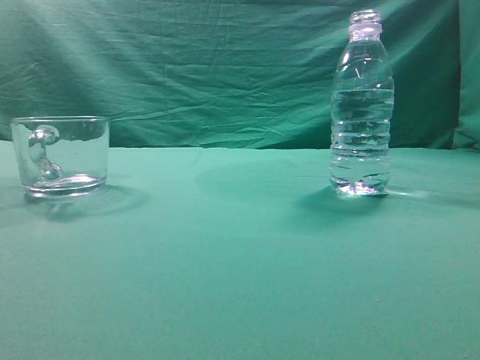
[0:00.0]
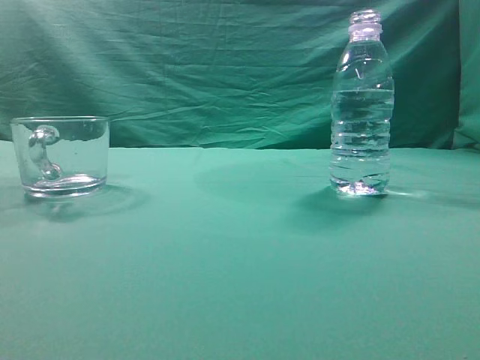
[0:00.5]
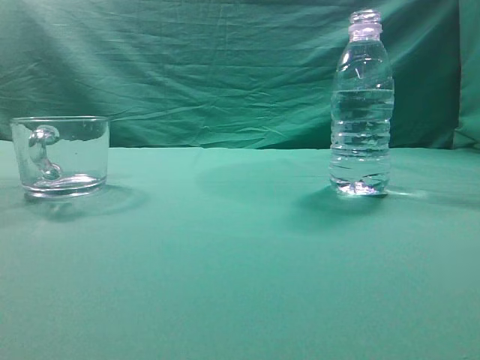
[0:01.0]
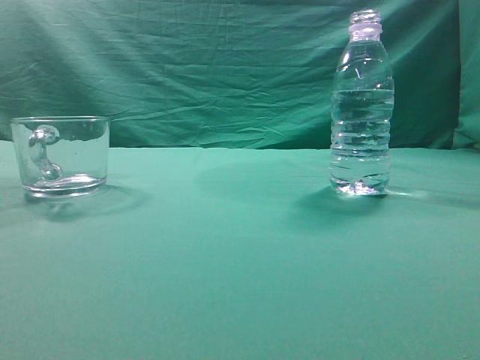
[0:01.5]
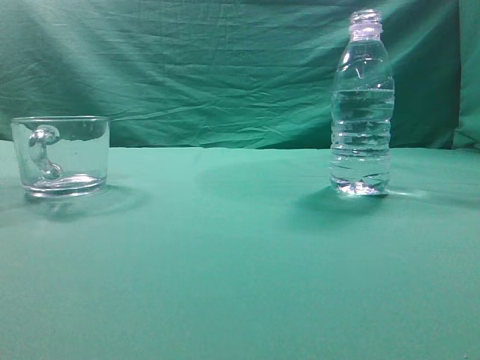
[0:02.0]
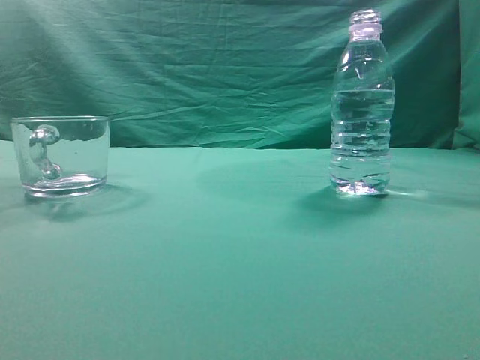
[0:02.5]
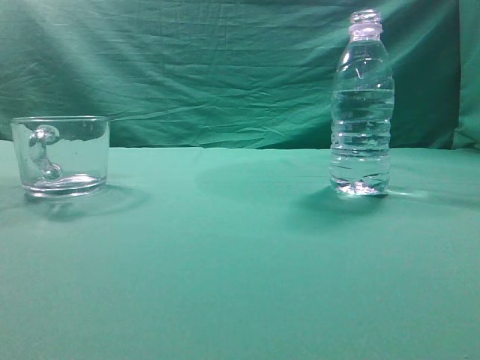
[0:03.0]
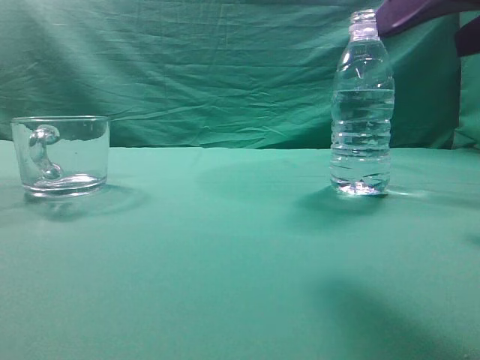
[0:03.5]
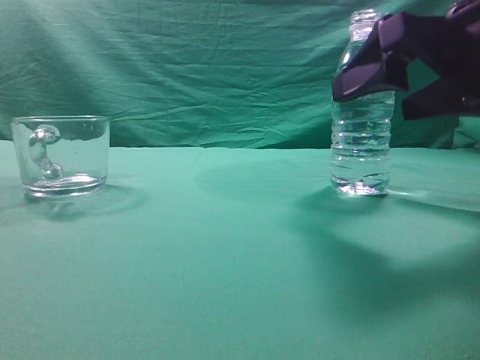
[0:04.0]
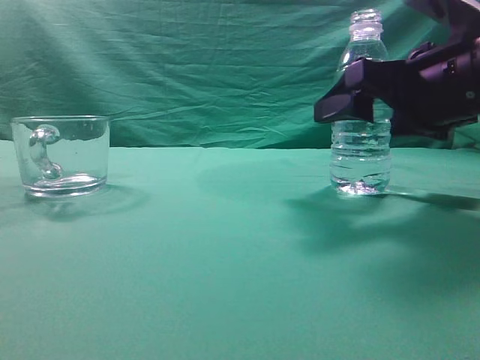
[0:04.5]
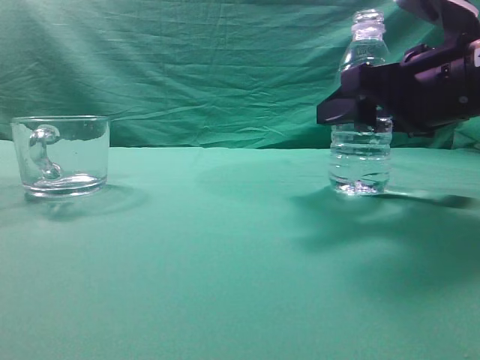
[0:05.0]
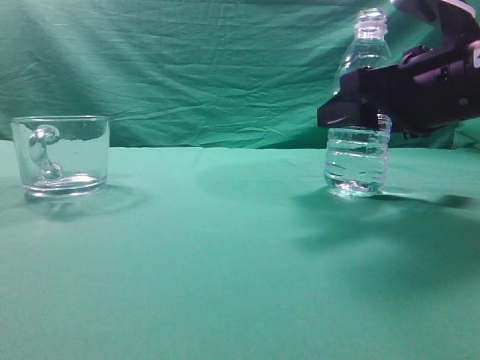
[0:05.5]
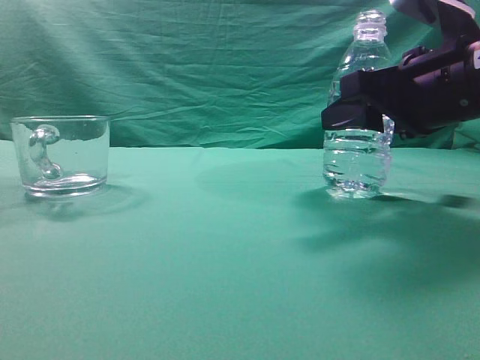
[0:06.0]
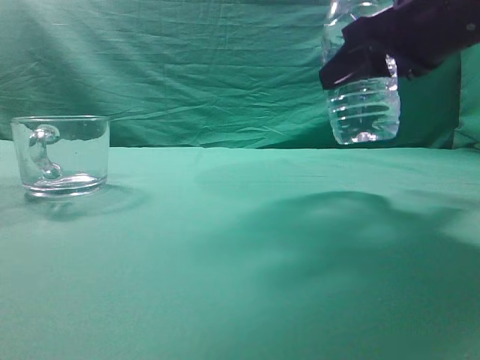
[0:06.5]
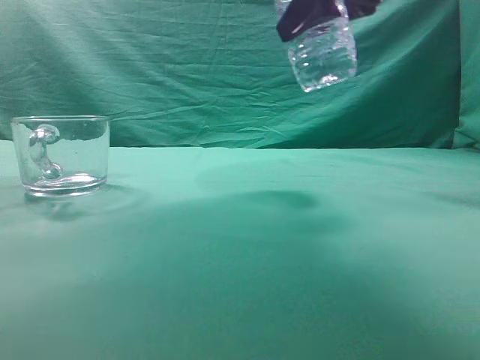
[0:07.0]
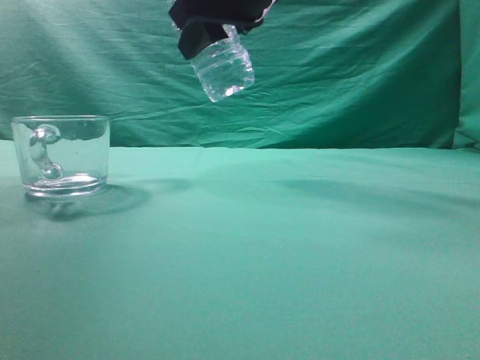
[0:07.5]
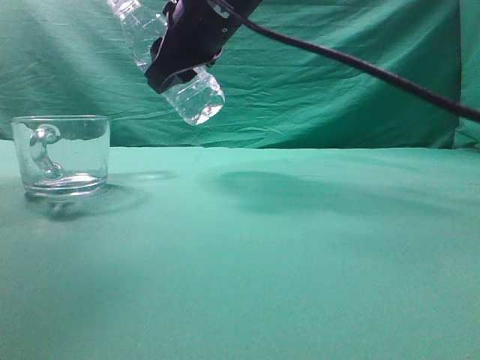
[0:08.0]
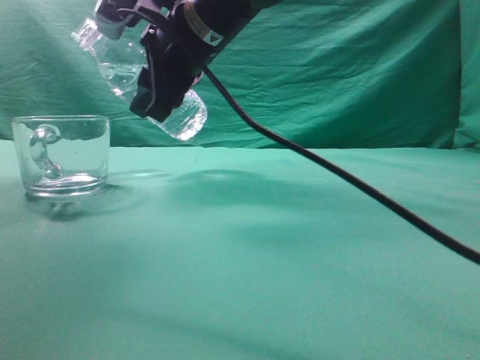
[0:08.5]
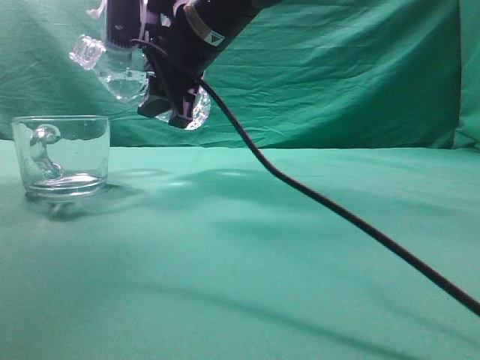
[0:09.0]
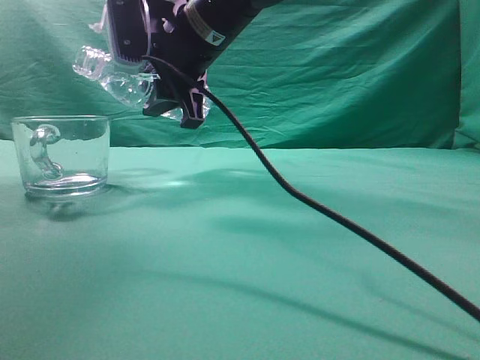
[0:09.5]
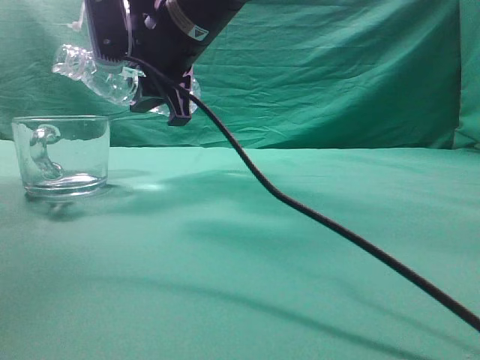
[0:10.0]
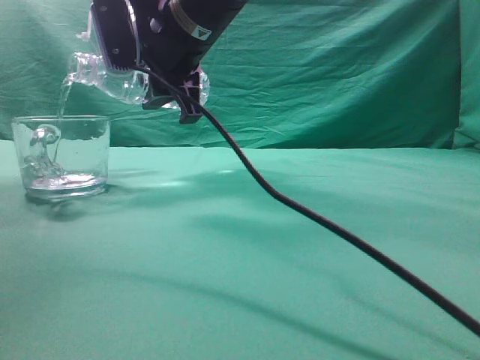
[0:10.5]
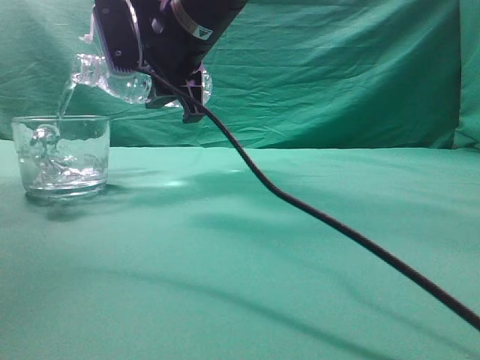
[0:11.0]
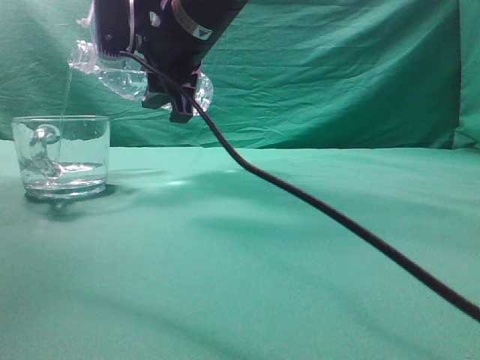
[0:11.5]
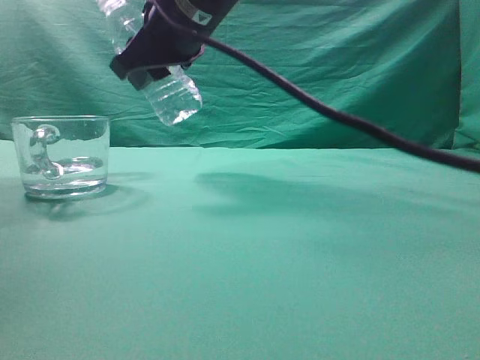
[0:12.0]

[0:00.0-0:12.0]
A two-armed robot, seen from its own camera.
Task of the whole recording: pick up the water bottle and pour the water in it into the glass.
Step, 0:00.0 to 0:06.5: Grasp the mineral water bottle.
Step, 0:07.0 to 0:11.5: Pour water into the teacup.
0:02.0 to 0:04.0: The right gripper travels forward, downward and to the left by roughly 25 cm, and opens.
0:04.0 to 0:06.0: The right gripper shifts by some 5 cm, and closes.
0:06.0 to 0:08.0: The right gripper shifts approximately 25 cm to the left, forward and upward.

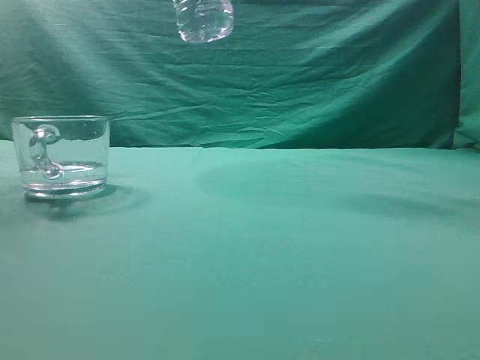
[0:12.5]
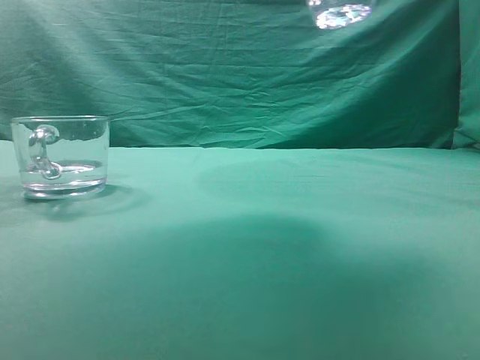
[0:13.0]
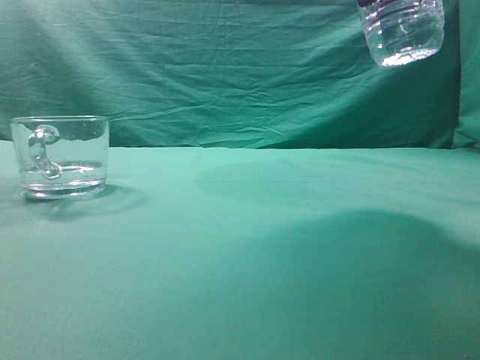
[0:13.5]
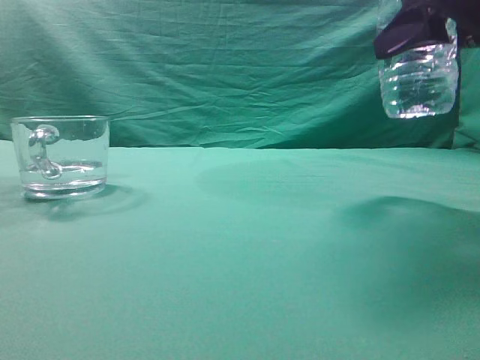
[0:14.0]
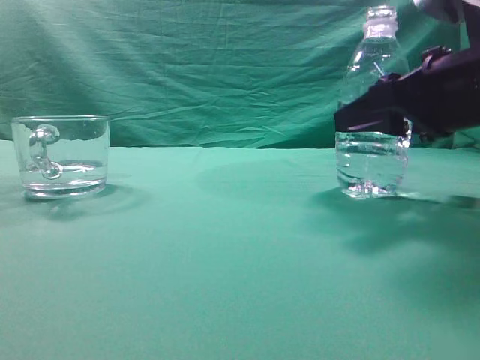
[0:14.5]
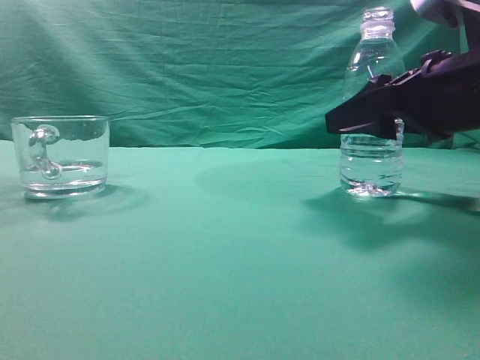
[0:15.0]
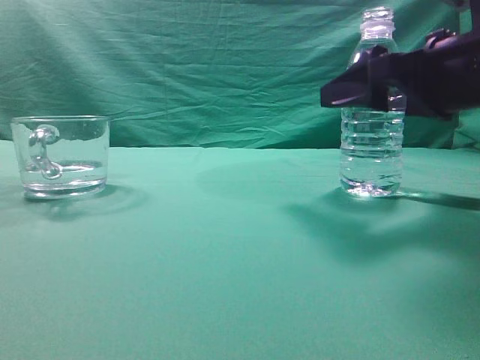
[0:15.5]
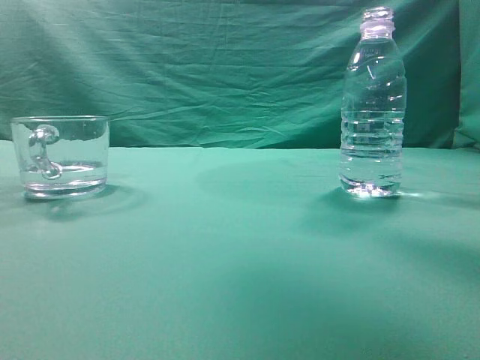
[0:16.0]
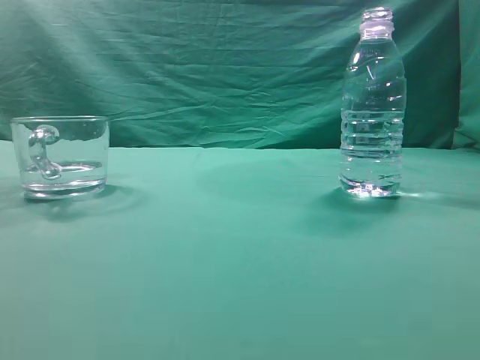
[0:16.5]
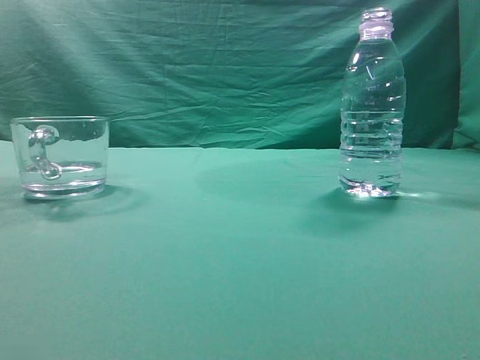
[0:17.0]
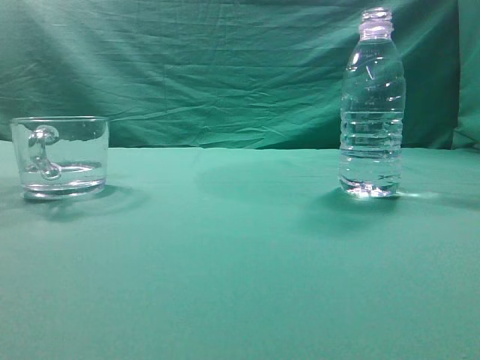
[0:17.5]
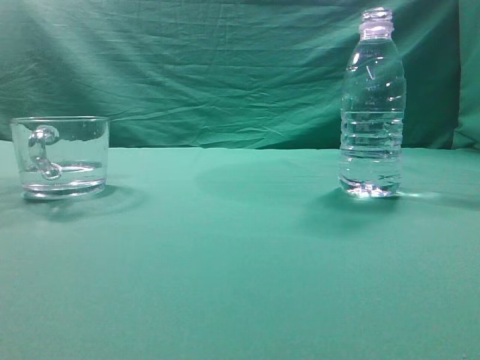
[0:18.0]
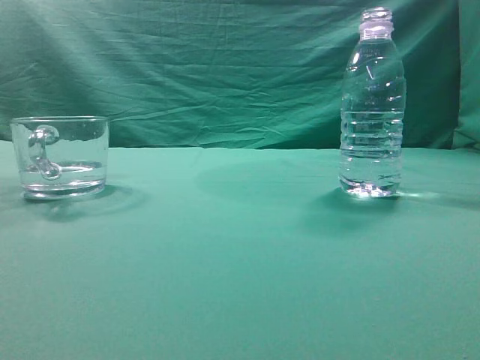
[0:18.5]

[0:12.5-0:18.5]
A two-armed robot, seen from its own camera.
Task of the whole recording: pick up the water bottle and pour the water in it into the glass.
0:12.5 to 0:14.5: The right gripper goes some 25 cm downward and to the right.
0:14.5 to 0:16.5: The right gripper travels upward and backward by approximately 30 cm, and closes up.
